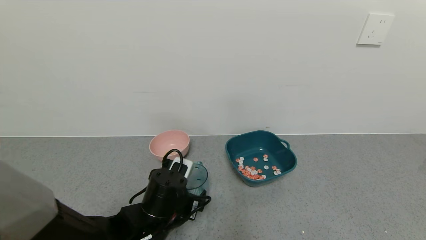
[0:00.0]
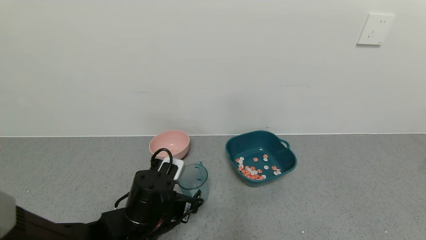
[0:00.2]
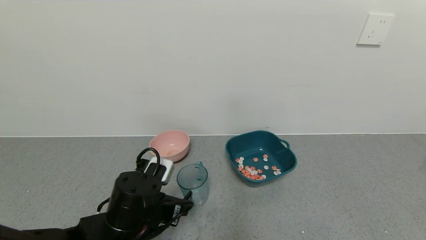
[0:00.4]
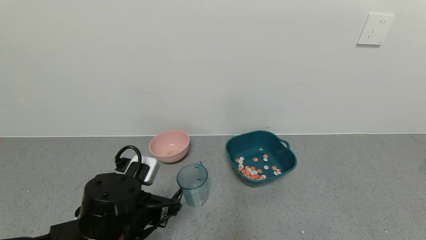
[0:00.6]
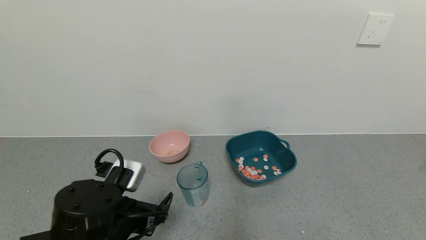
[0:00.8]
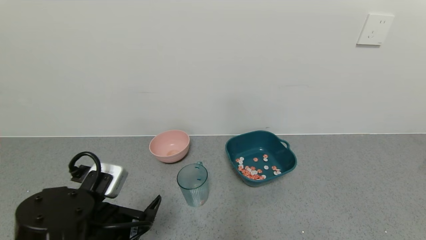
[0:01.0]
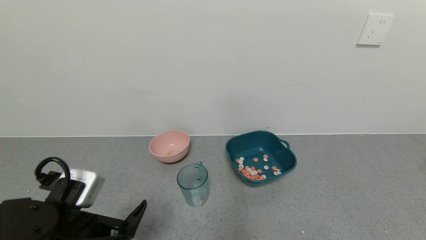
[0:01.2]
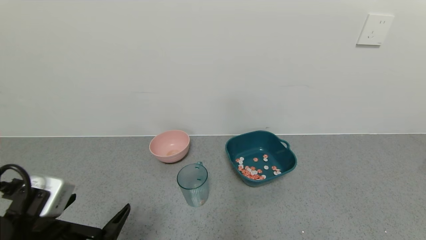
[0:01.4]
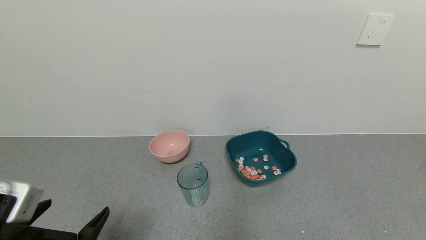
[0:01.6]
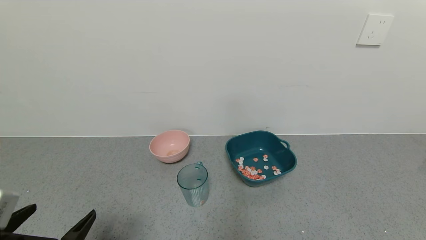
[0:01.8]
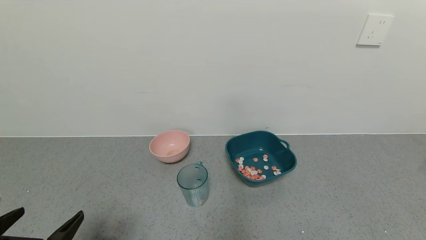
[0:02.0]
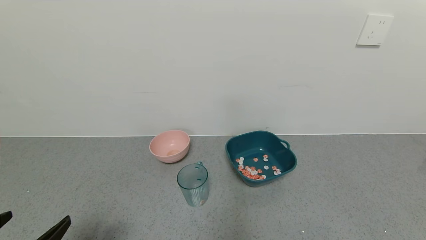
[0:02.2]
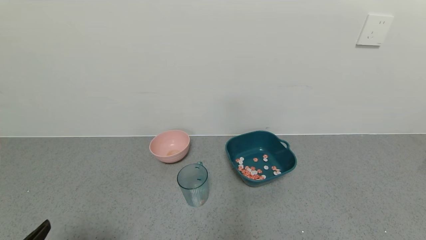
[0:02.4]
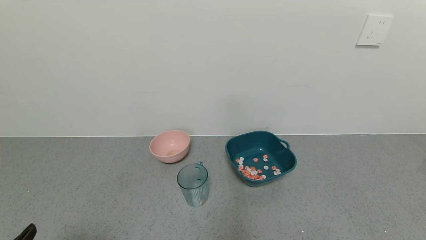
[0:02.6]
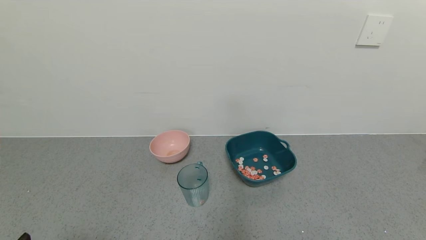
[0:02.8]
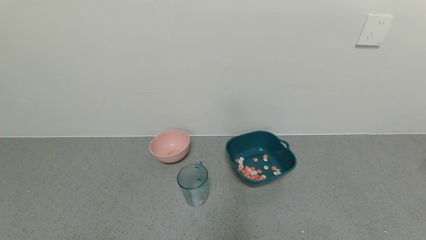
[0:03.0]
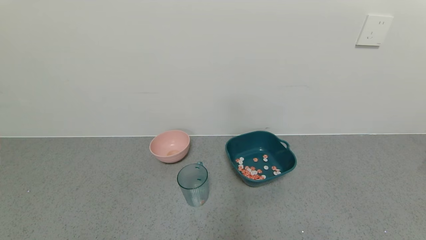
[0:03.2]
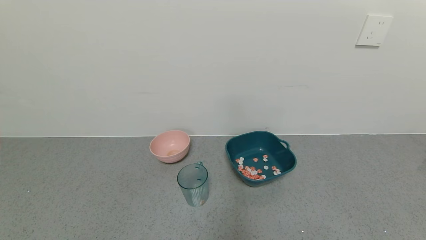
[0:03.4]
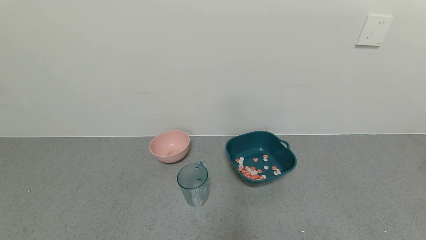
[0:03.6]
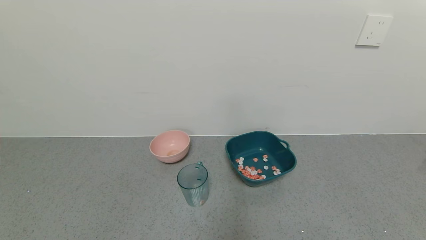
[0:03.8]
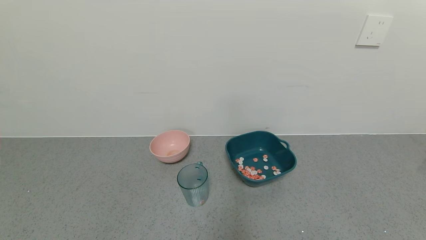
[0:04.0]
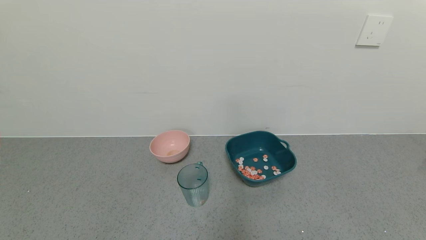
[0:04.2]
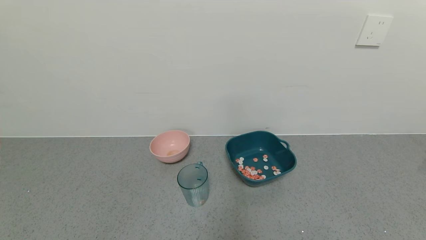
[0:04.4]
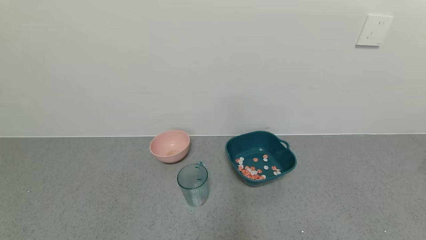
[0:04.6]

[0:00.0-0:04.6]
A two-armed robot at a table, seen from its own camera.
Task of the whole recording: use a gripper to pick up the cup and pour the solid into a bowl or tray.
0:00.0 to 0:01.6: The left gripper moves backward, to the left and upward, approximately 20 cm.
0:01.6 to 0:03.0: The left gripper is displaced backward and to the left by about 10 cm.

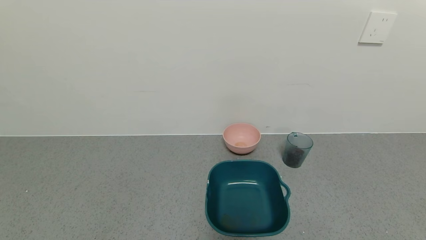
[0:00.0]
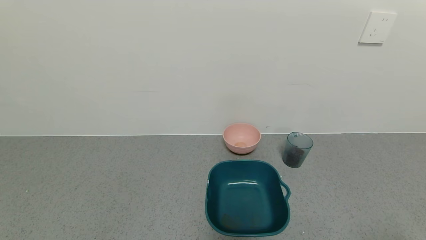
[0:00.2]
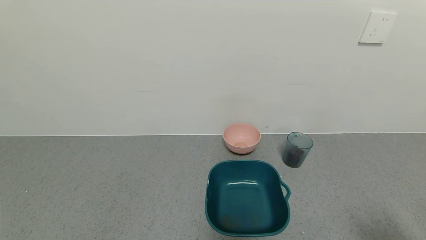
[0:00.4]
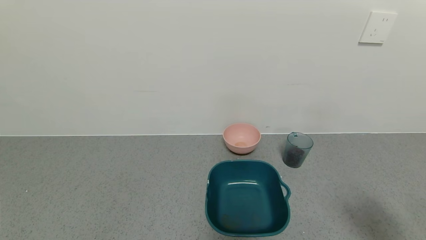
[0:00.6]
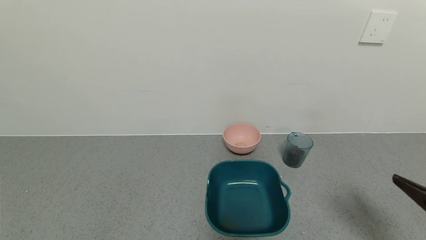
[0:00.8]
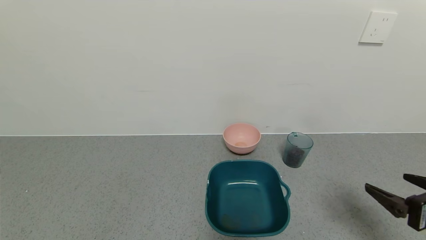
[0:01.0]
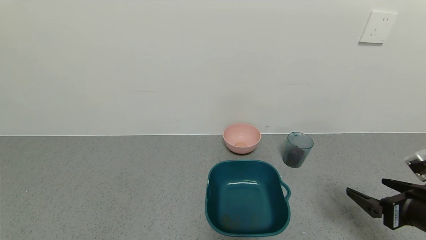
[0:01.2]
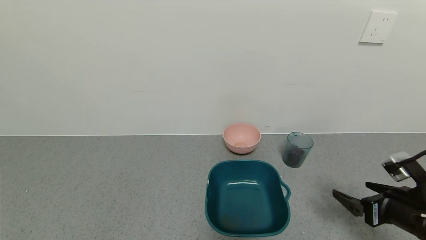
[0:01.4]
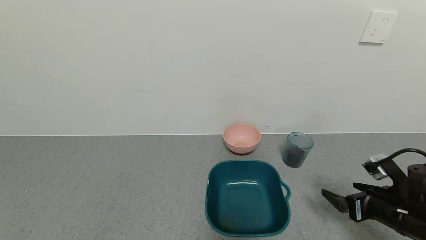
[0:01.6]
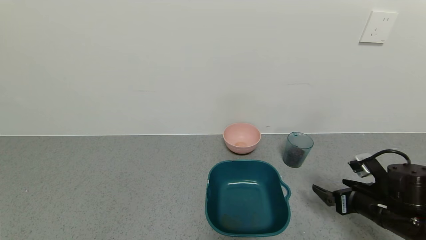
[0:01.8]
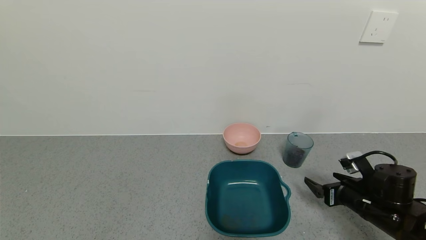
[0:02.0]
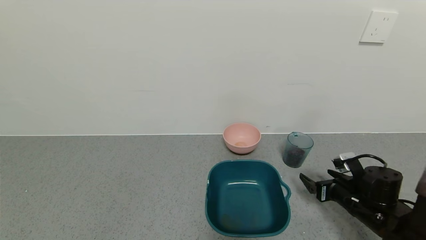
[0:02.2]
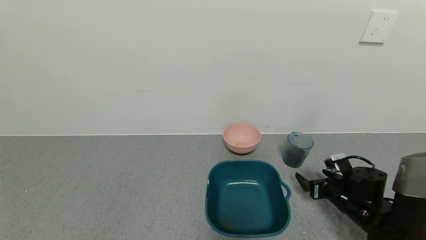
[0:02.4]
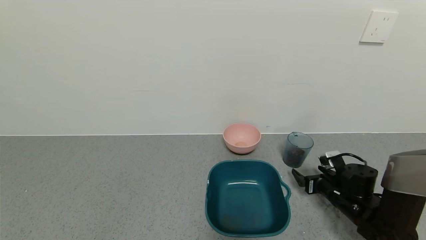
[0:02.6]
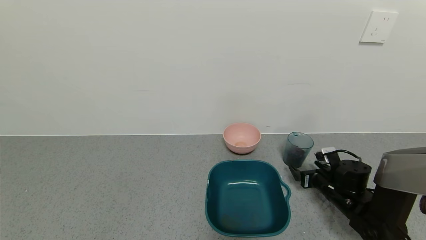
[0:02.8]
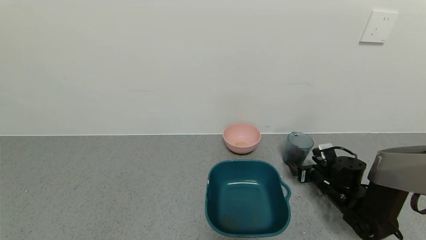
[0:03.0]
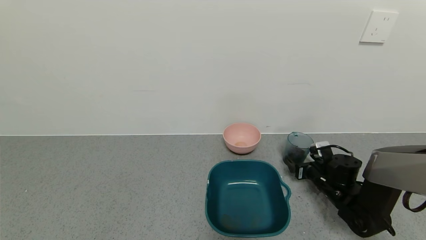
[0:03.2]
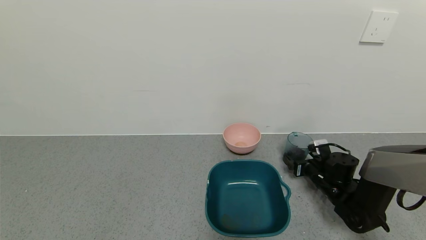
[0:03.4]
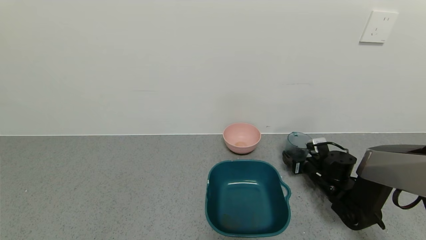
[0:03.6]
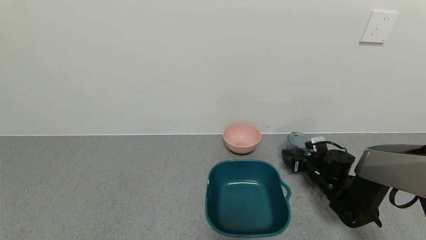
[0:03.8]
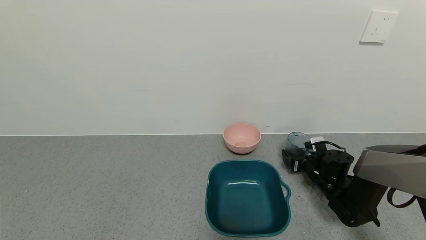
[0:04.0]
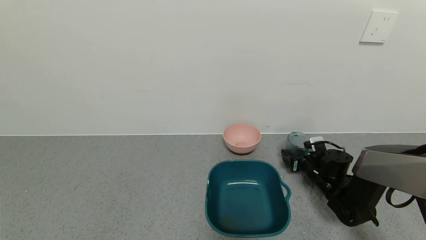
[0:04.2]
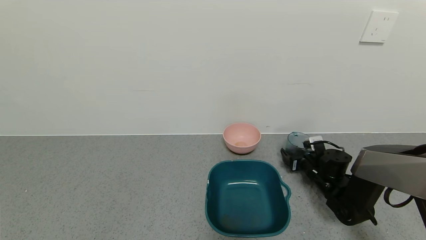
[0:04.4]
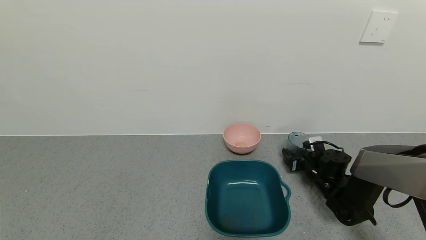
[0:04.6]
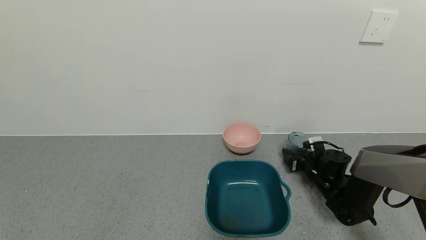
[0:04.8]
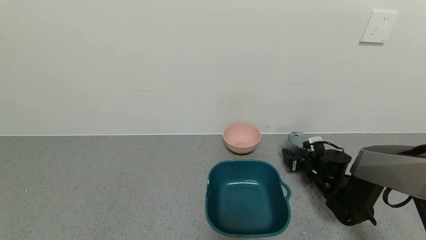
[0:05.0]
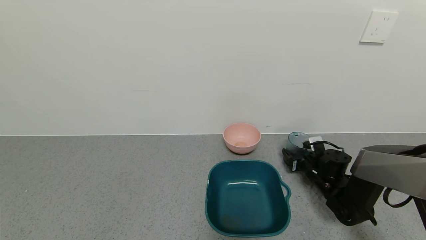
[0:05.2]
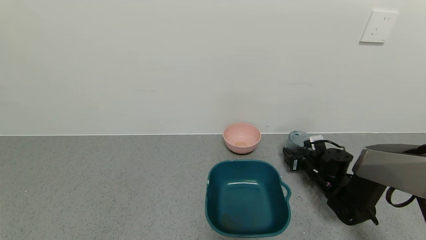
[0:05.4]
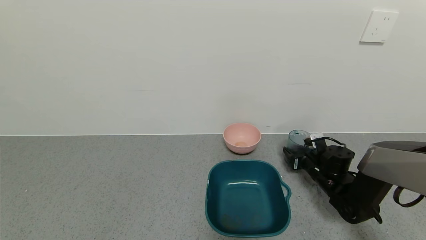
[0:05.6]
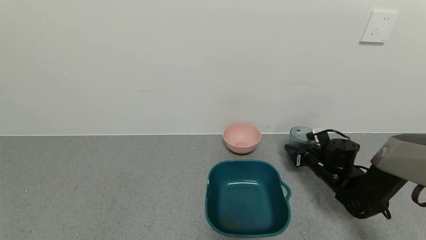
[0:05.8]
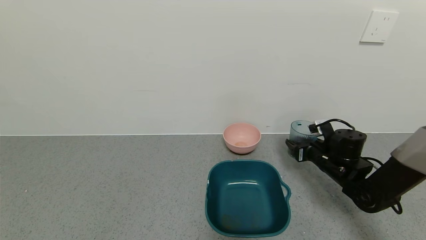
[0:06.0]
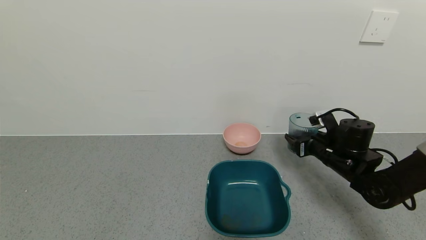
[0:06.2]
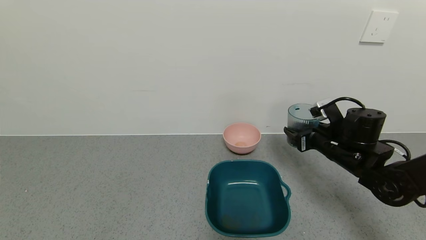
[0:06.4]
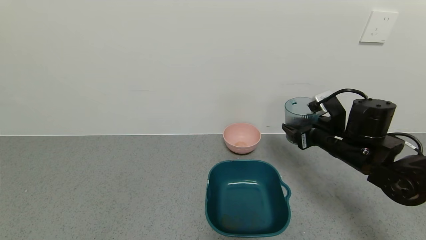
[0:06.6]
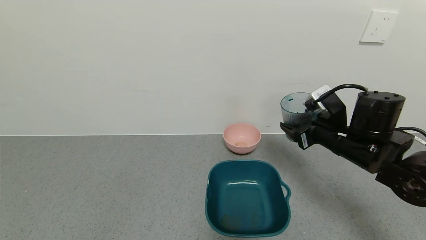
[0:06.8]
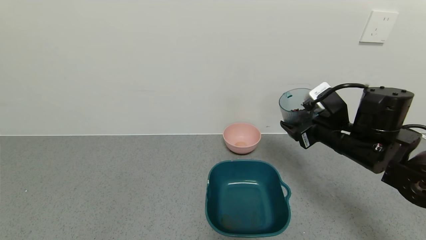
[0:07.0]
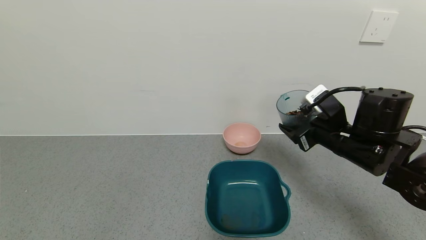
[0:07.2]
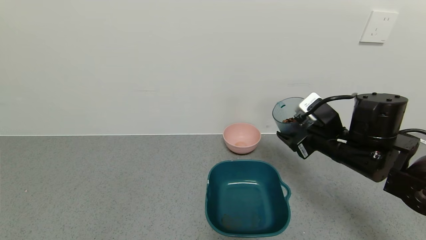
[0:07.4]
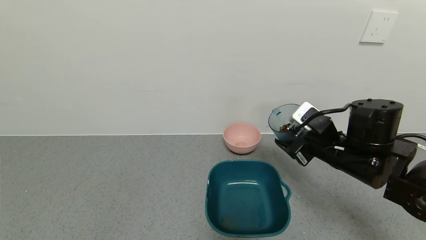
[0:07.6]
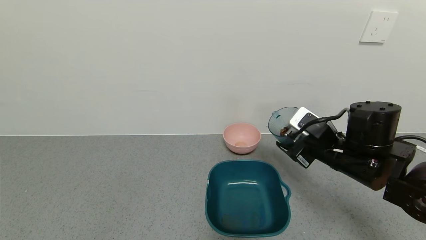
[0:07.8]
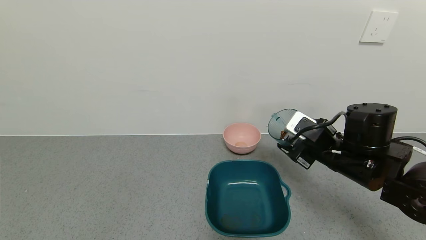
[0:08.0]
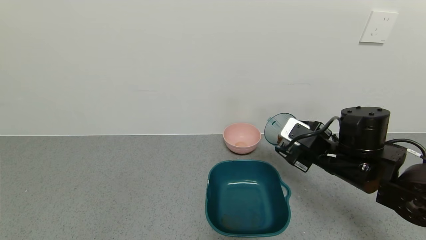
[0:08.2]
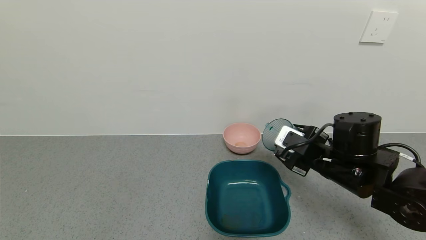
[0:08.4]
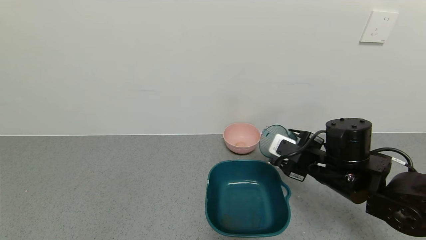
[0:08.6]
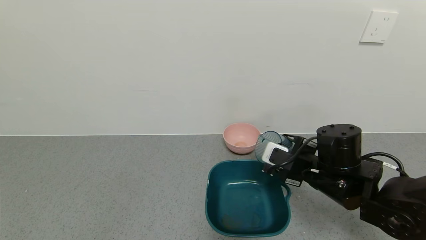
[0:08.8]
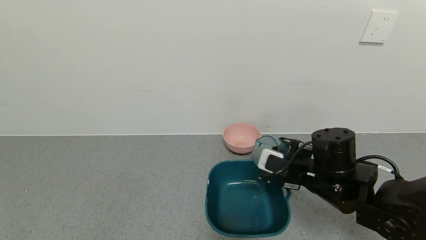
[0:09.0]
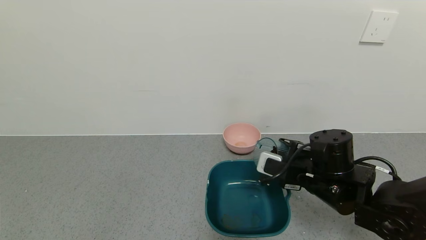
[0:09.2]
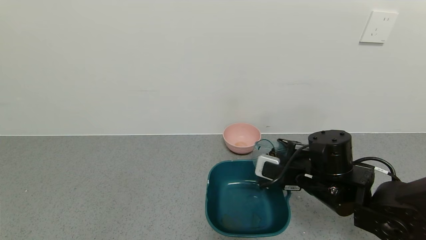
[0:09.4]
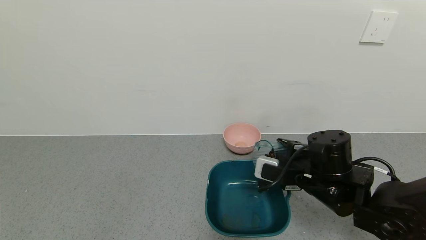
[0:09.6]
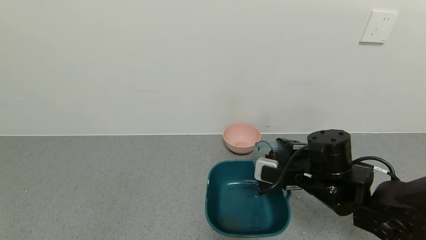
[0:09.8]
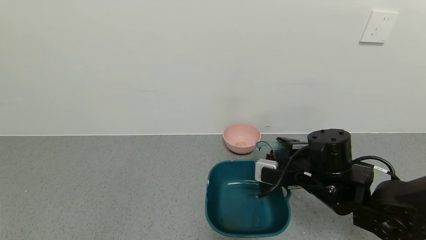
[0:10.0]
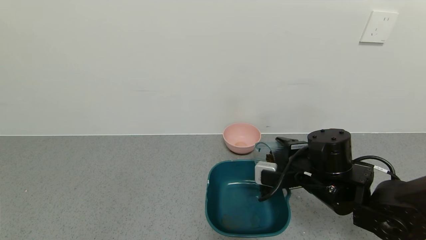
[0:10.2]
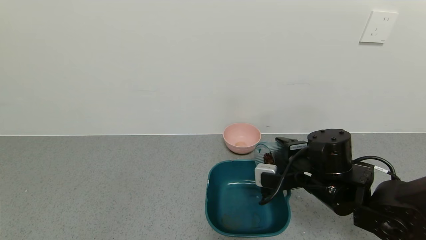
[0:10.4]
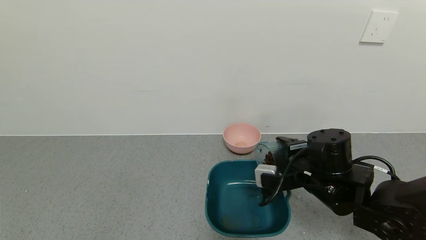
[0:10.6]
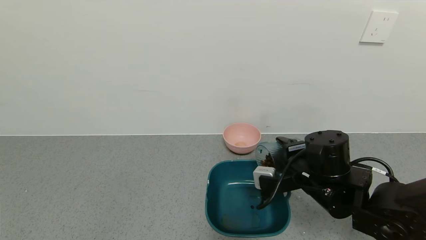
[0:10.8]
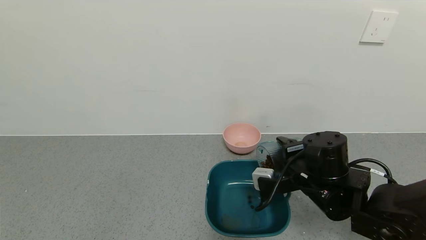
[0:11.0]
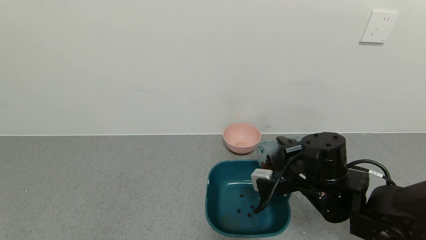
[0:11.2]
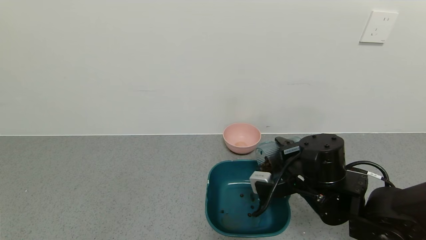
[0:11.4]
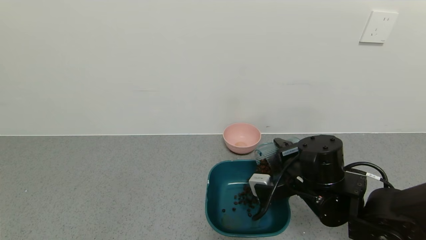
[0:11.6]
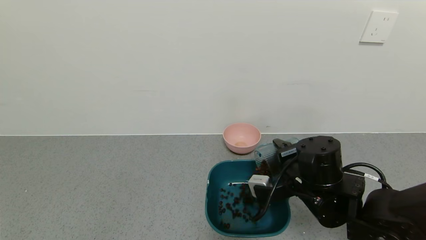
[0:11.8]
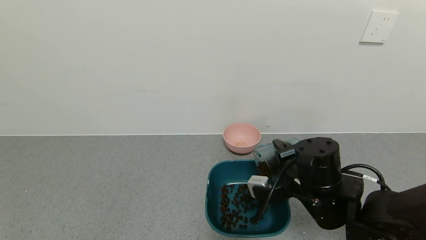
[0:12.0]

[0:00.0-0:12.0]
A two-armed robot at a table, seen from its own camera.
Task of the whole recording: use a gripper to pick up the cup and pour the solid into a bowl or tray.
Step, 0:00.0 to 0:05.2: Grasp the glass of coffee beans with the right gripper.
0:00.0 to 0:01.6: The right gripper heads forward, covering approximately 25 cm.
0:01.6 to 0:03.0: The right gripper heads forward and downward, covering roughly 15 cm.
0:03.0 to 0:04.4: There are only small adjustments of the grippers.
0:04.4 to 0:06.0: The right gripper moves upward, approximately 5 cm, and closes its fingers.
0:06.0 to 0:07.6: The right gripper heads upward, backward and to the left, covering some 15 cm.
0:07.6 to 0:09.0: The right gripper changes place by about 5 cm.
0:10.4 to 0:12.0: There are only small adjustments of the grippers.
